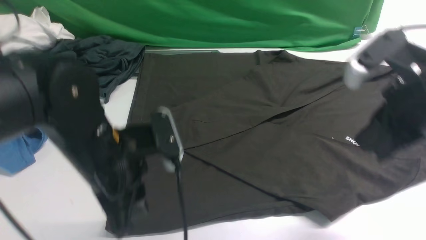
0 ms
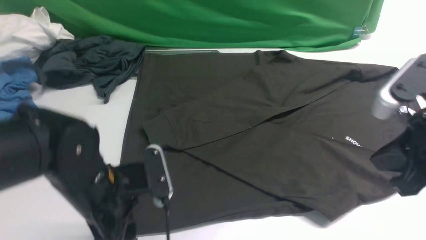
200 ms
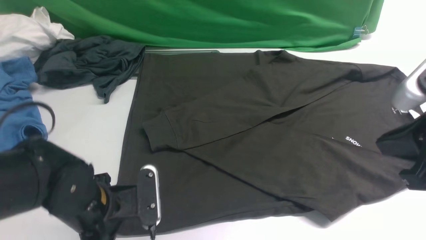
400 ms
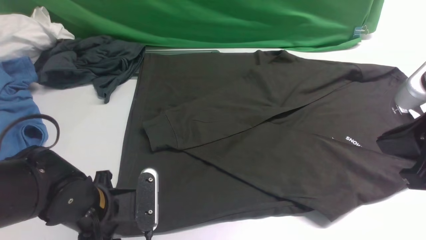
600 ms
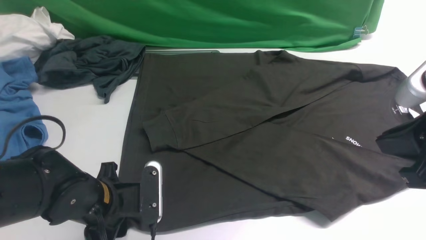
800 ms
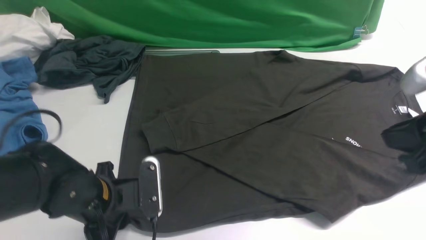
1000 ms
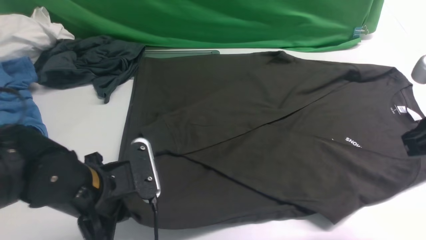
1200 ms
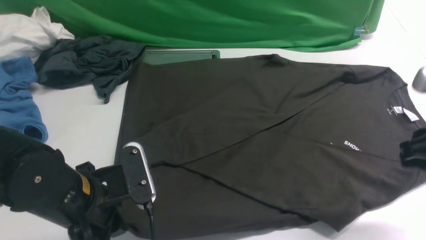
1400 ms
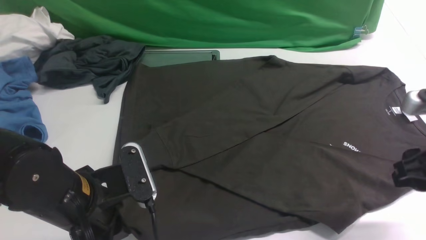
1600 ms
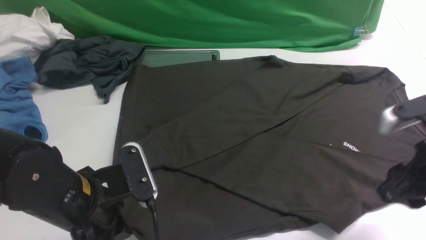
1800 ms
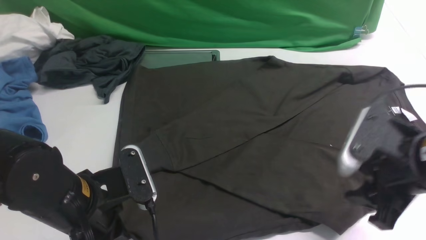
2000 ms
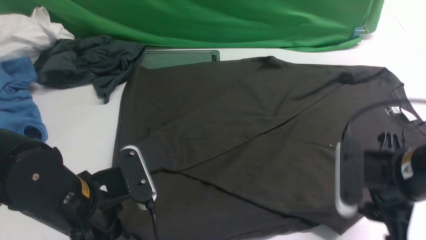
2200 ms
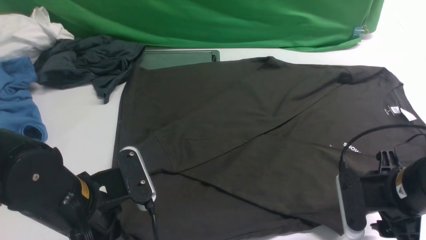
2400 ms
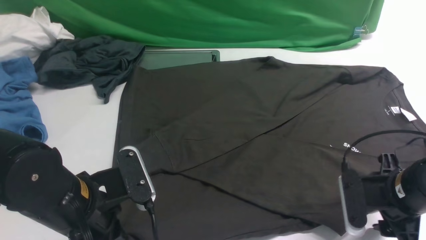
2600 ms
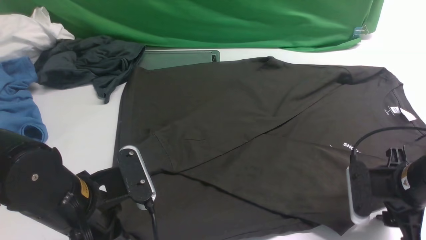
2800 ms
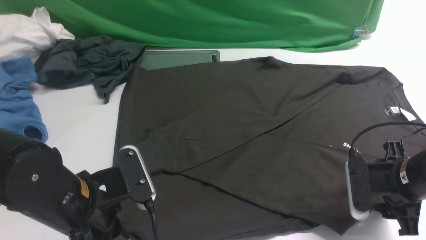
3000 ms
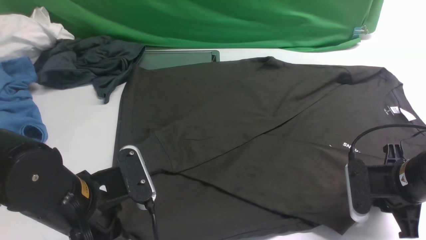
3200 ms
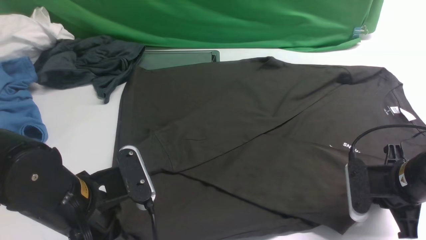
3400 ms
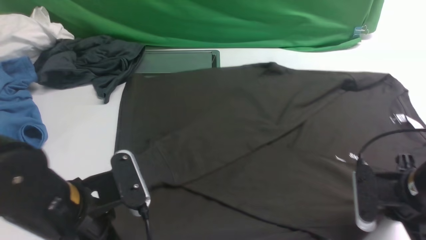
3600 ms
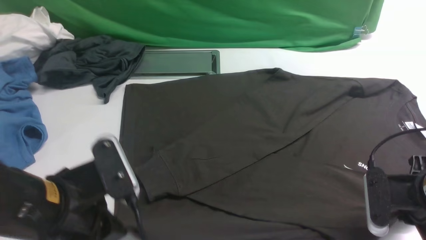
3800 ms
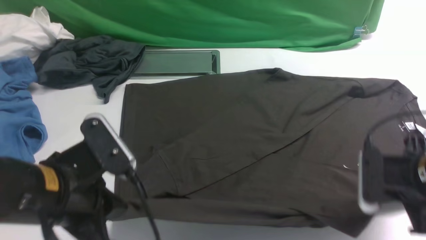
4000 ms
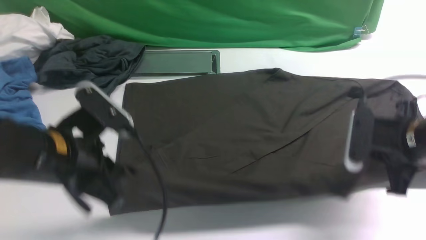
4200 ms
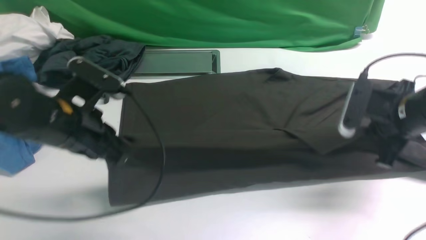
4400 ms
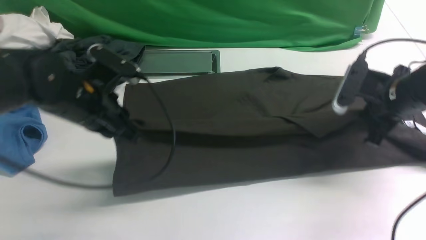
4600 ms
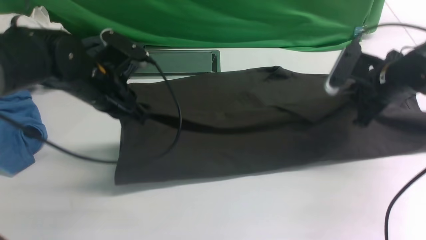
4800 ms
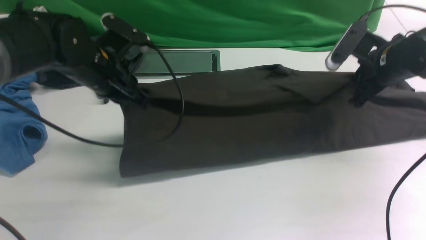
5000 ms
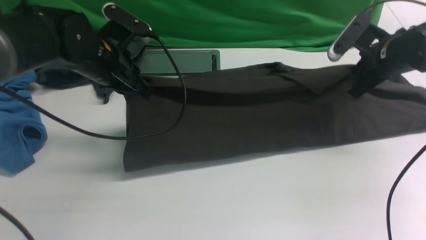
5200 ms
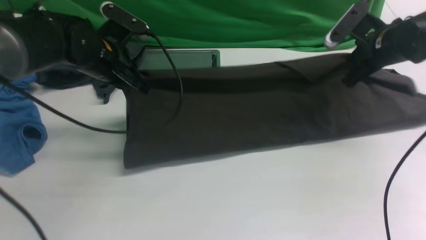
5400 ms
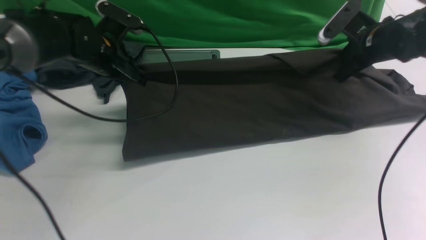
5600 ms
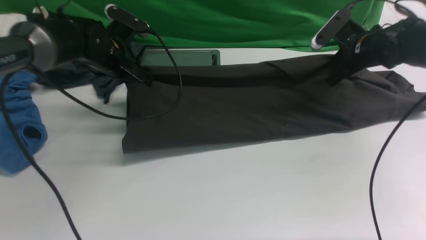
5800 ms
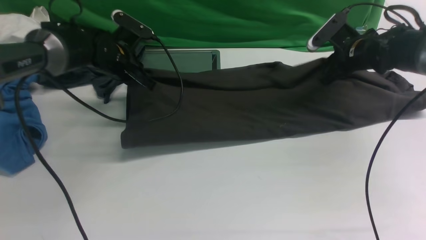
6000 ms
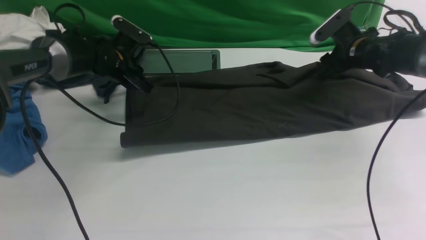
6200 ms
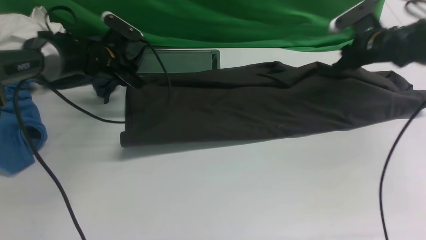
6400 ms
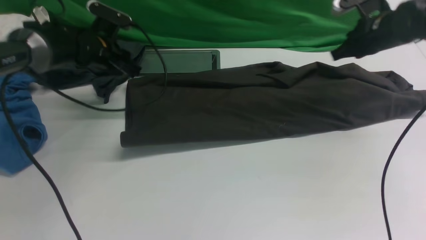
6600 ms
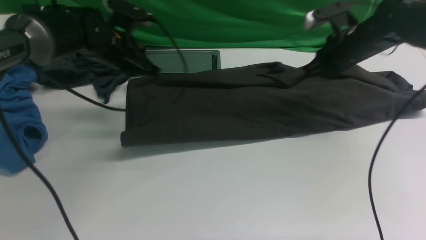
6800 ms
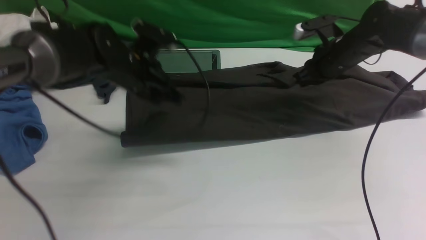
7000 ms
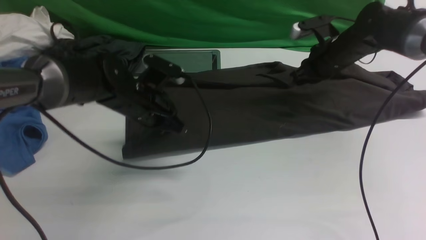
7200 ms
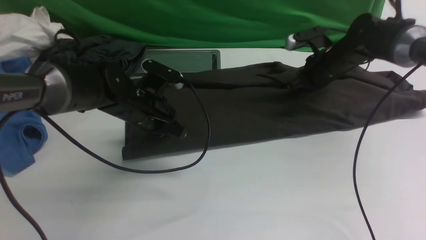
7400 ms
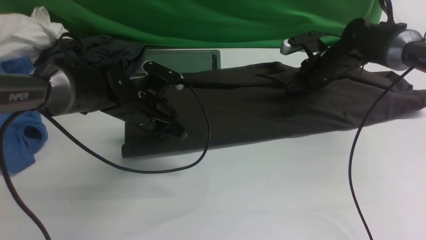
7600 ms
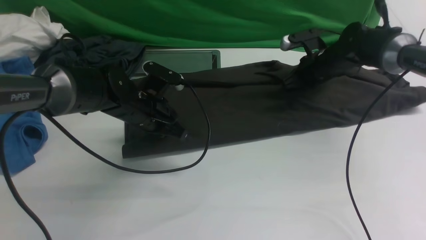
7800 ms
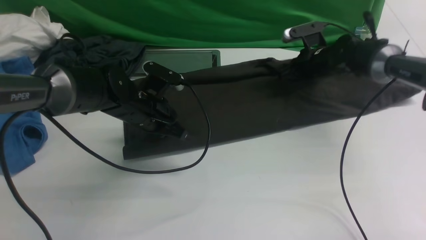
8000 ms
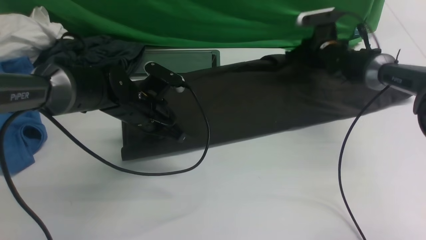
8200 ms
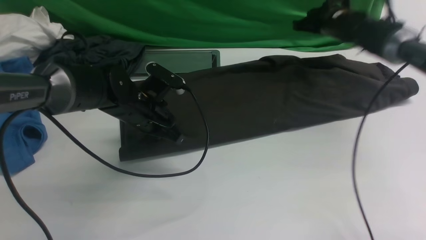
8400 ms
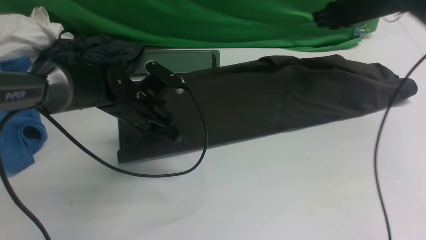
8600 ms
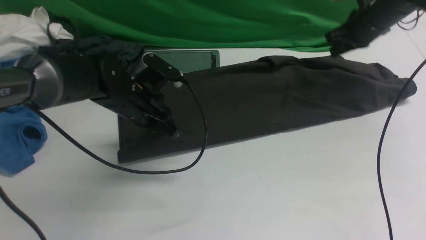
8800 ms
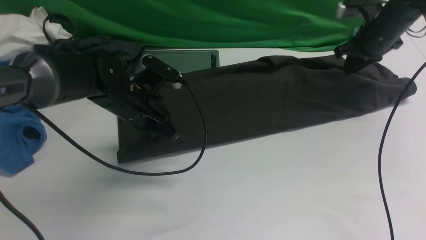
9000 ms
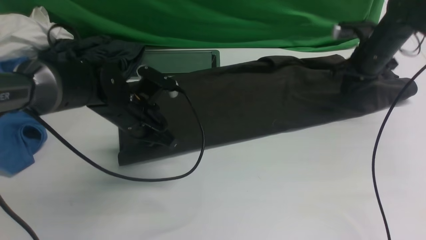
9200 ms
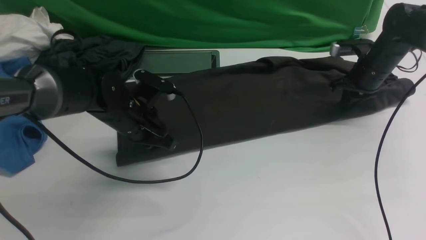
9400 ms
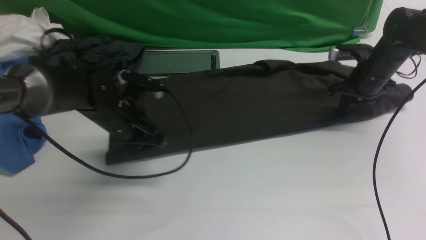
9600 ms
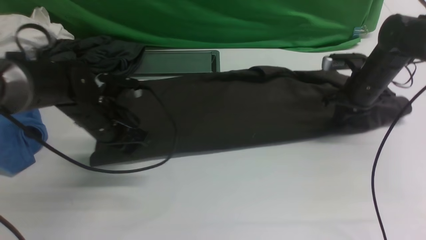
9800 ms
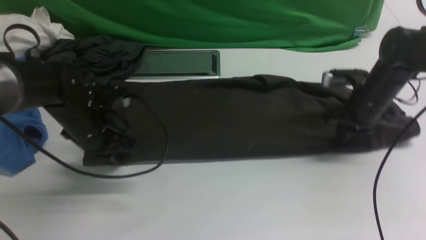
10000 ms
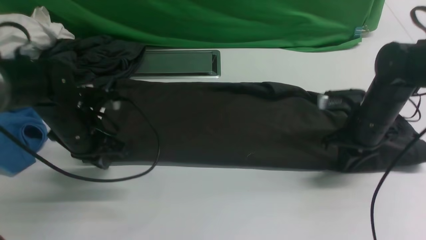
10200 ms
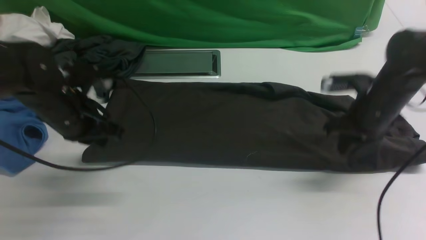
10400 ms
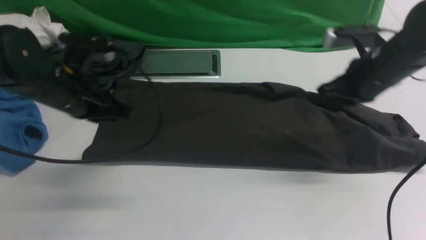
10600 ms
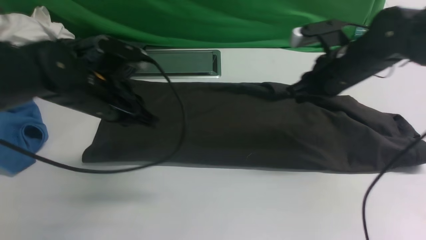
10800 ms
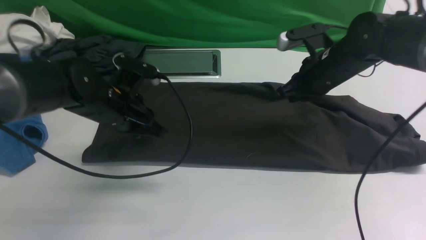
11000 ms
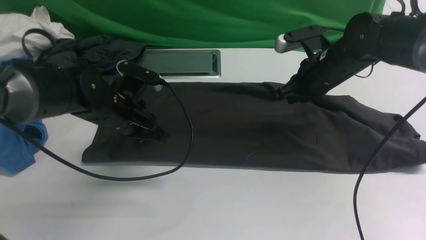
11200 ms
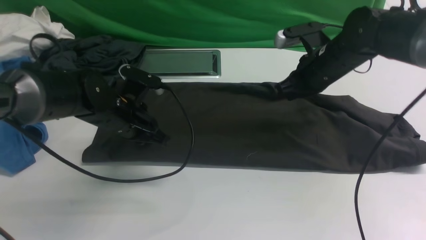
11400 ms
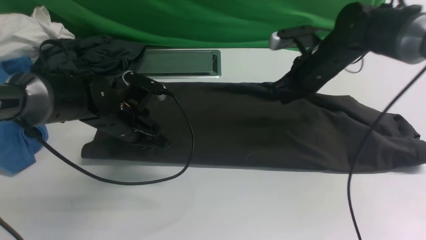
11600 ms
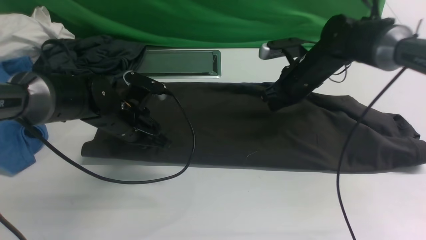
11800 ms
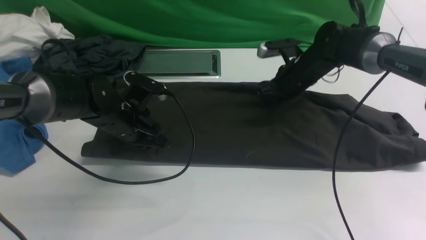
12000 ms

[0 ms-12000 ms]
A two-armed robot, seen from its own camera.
Step, 0 ms to 3600 ms: use both arms simultaneously to clamp the lower edge of the clothing fabric.
0 ms to 1600 ms: The right gripper shifts roughly 5 cm downward, and opens its fingers, while the left gripper moves roughly 10 cm downward and comes back, and closes.
1600 ms to 3000 ms: The right gripper shifts about 10 cm downward.
3000 ms to 4400 ms: The right gripper shifts approximately 10 cm forward and upward, and closes up. The left gripper heads forward, covering some 10 cm.
4400 ms to 6000 ms: Both grippers move forward, some 20 cm. The right gripper opens its fingers.
6000 ms to 7600 ms: The left gripper is displaced backward and to the right by roughly 10 cm, and opens, then closes once more. The right gripper travels to the left by roughly 5 cm, and closes up.
7600 ms to 9000 ms: The right gripper moves to the right and upward, some 10 cm.
9000 ms to 10400 ms: The left gripper is displaced to the left by approximately 5 cm. The right gripper travels backward and to the left by approximately 15 cm.
10400 ms to 12000 ms: The right gripper shifts some 15 cm forward and to the left, while the left gripper shifts approximately 10 cm downward and to the right.

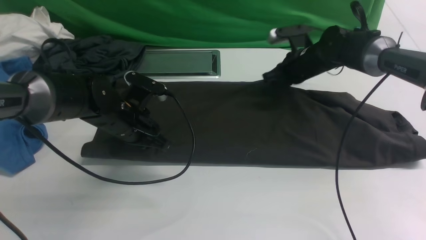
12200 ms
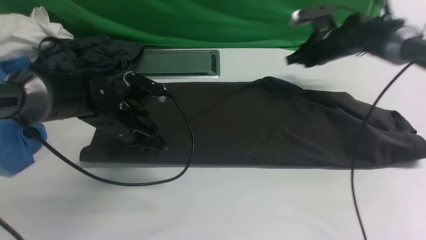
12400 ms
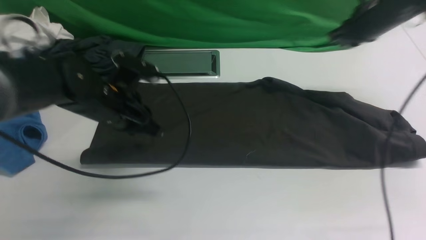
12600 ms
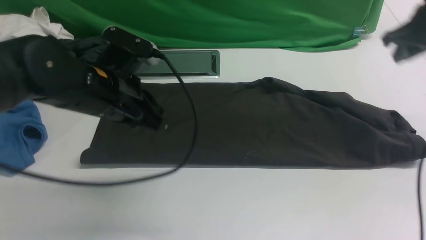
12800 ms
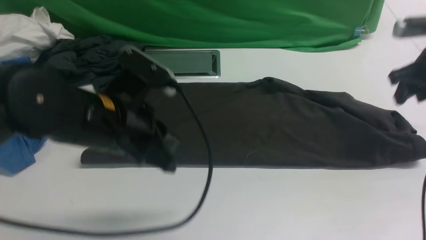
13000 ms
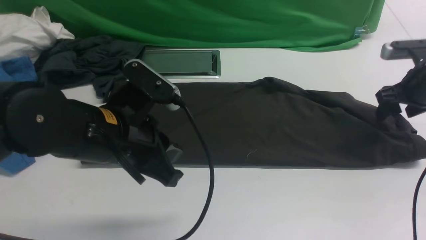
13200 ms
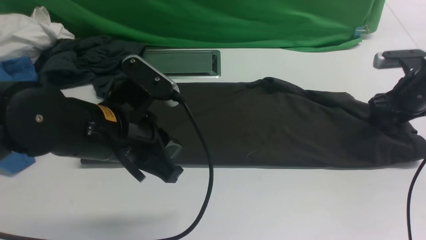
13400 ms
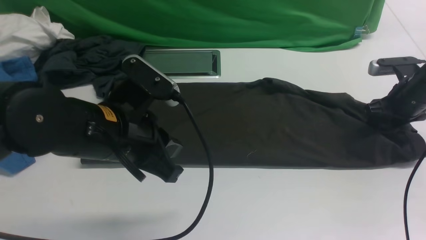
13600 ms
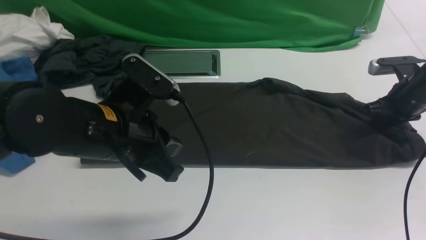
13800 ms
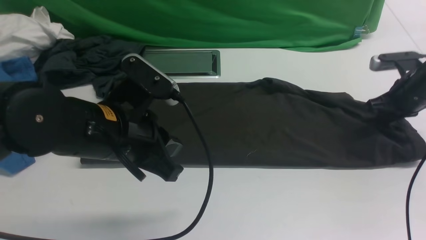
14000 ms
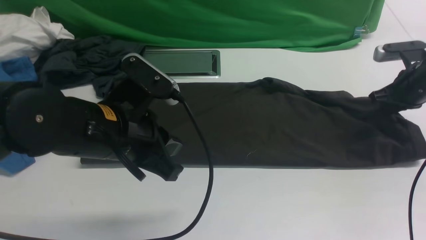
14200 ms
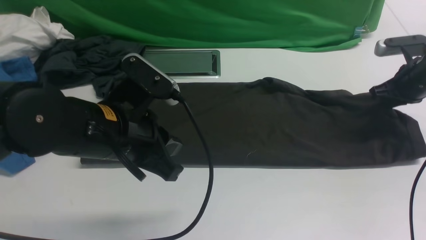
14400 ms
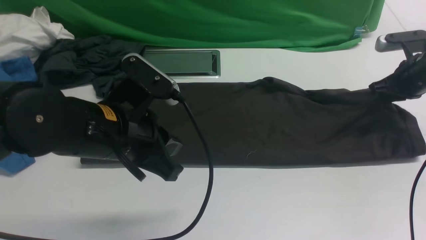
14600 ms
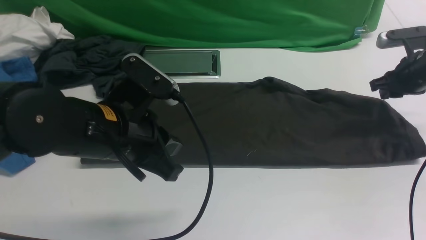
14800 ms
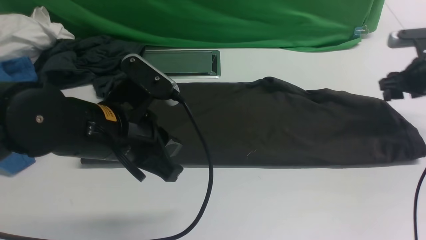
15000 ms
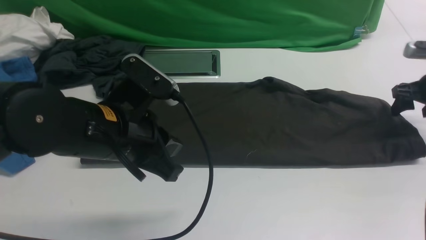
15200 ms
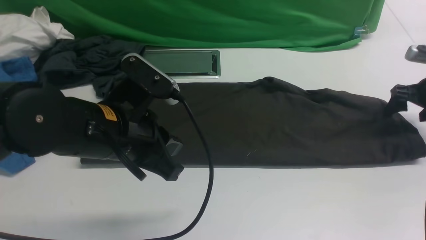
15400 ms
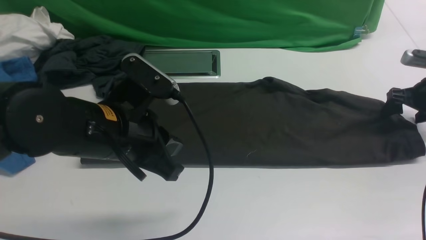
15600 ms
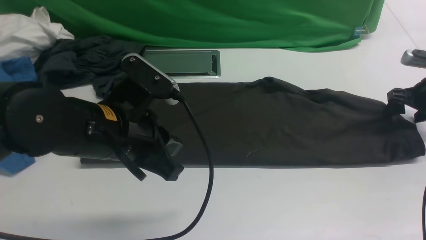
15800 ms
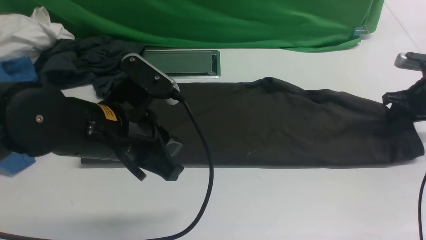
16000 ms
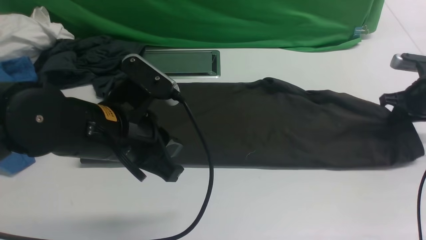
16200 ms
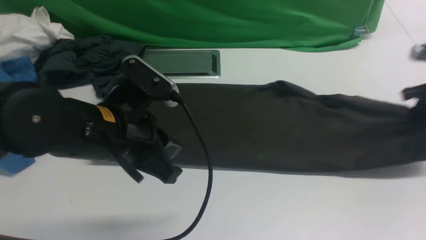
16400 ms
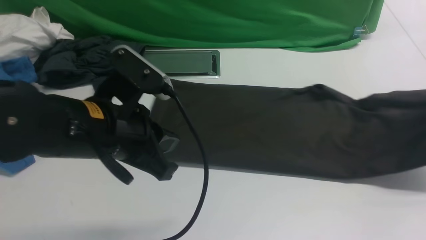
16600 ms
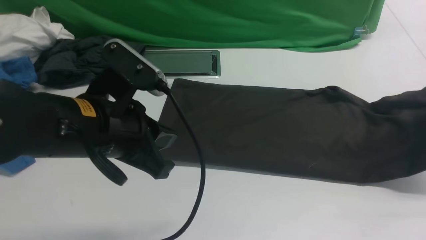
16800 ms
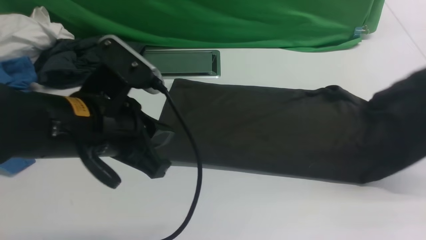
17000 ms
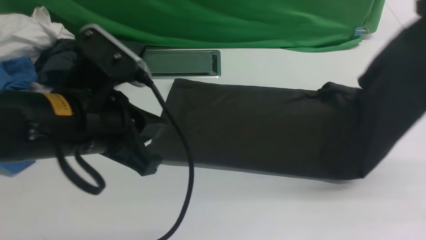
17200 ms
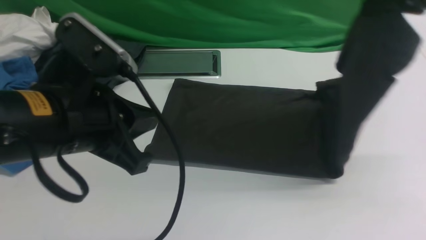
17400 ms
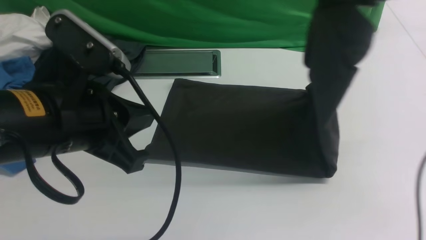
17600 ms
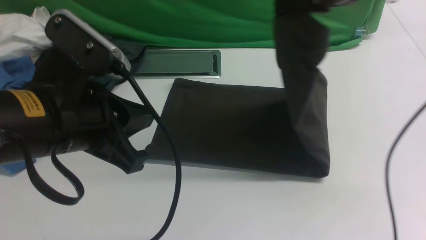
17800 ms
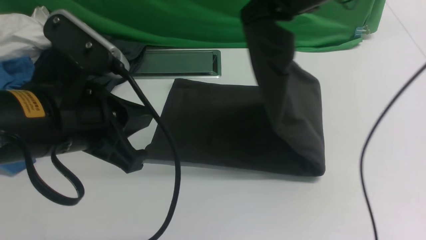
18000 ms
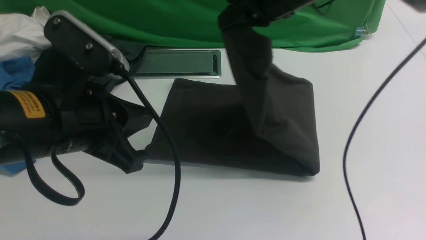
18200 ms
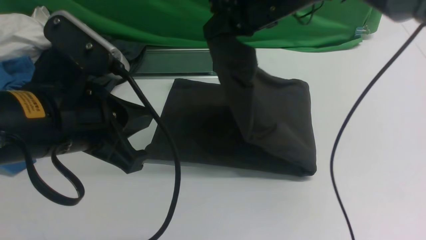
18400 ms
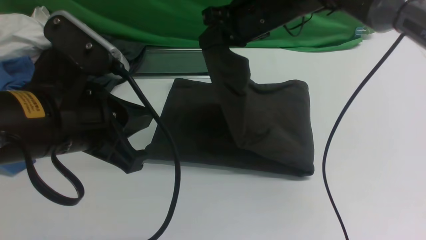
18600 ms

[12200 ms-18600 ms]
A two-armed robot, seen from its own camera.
Step, 12600 ms to 16200 ms: use the right arm to clamp the right edge of the fabric.
12200 ms to 13800 ms: The left gripper travels backward and upward by some 15 cm. The right gripper heads to the right and backward, covering about 20 cm, and opens and closes again.
13800 ms to 15400 ms: The right gripper opens up.
15400 ms to 17000 ms: The right gripper is displaced upward by approximately 15 cm, and closes its fingers.
17000 ms to 18600 ms: The right gripper is displaced to the left by roughly 30 cm.
